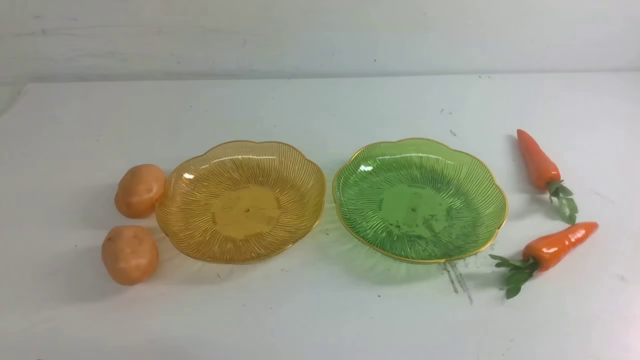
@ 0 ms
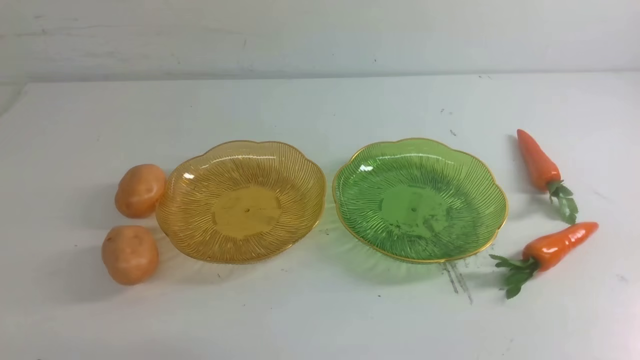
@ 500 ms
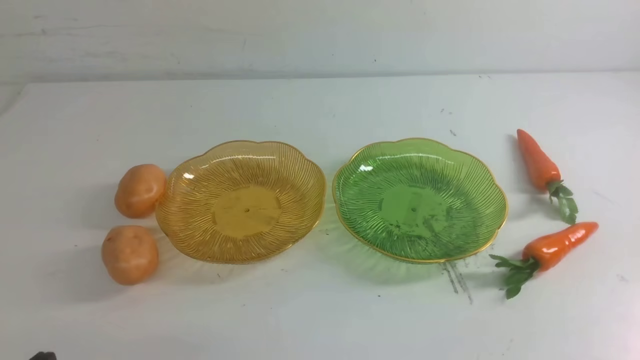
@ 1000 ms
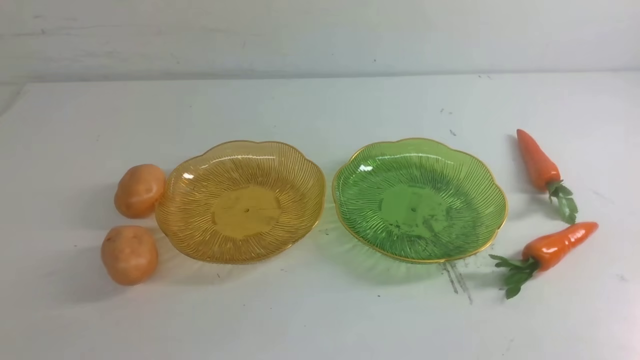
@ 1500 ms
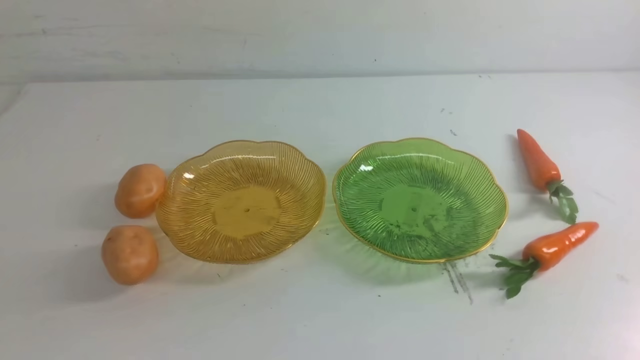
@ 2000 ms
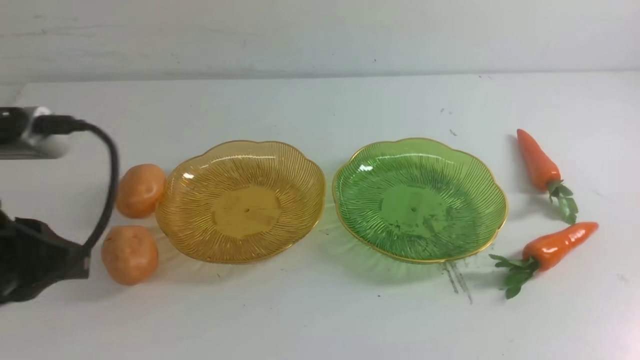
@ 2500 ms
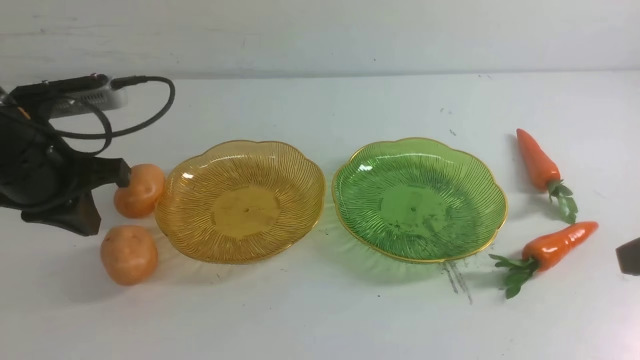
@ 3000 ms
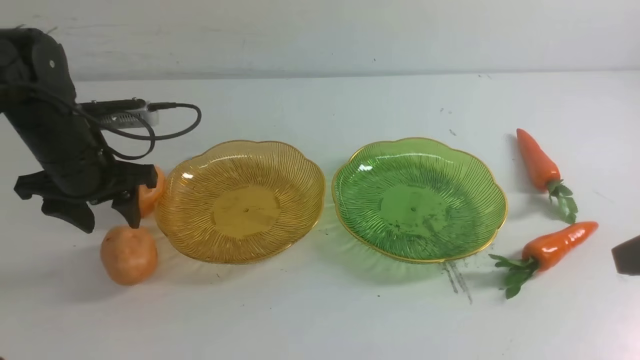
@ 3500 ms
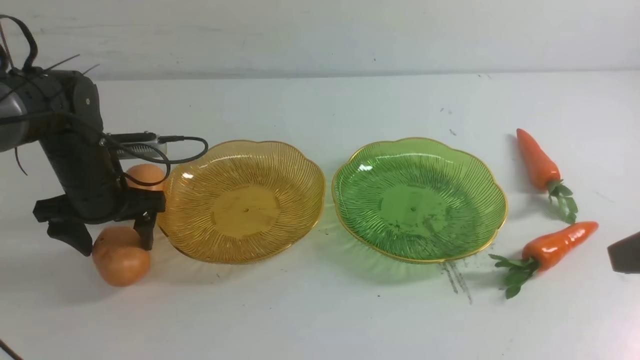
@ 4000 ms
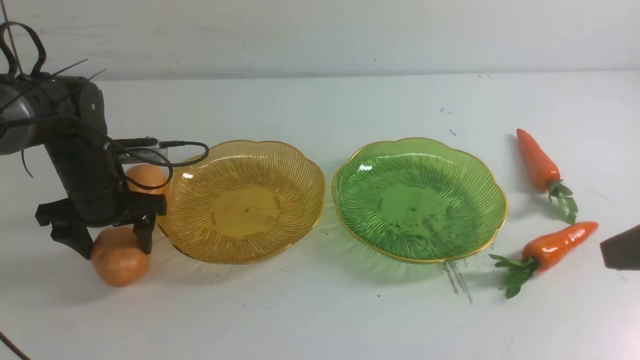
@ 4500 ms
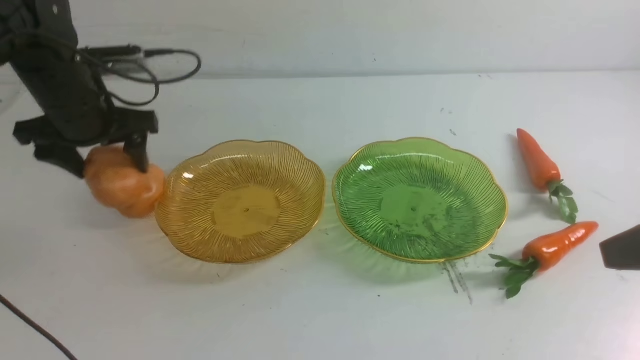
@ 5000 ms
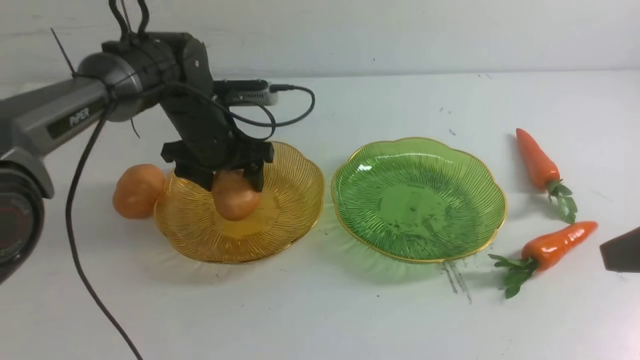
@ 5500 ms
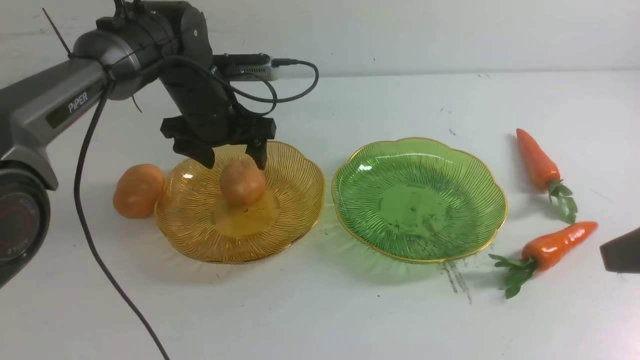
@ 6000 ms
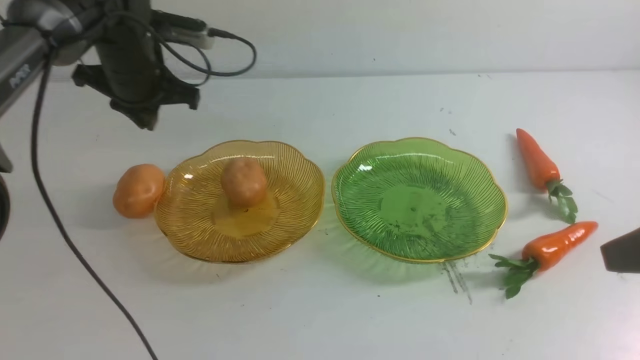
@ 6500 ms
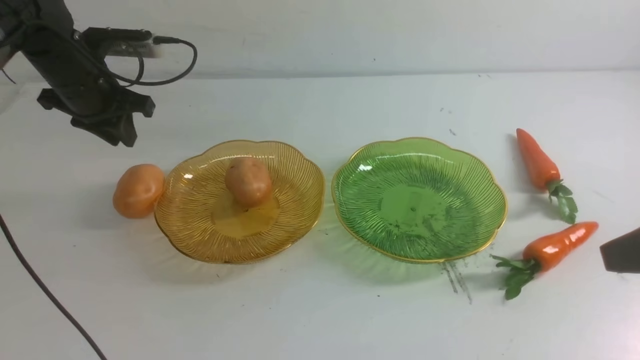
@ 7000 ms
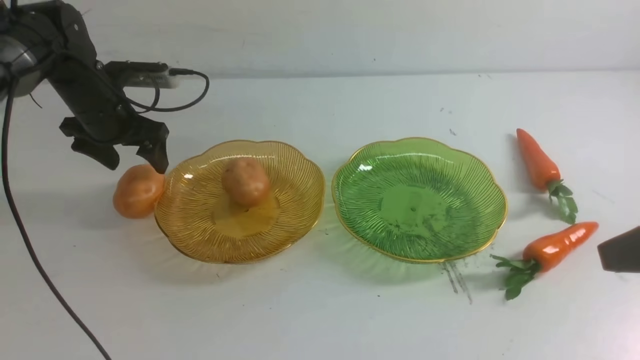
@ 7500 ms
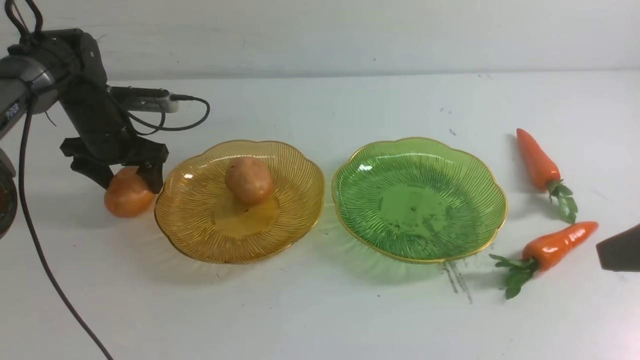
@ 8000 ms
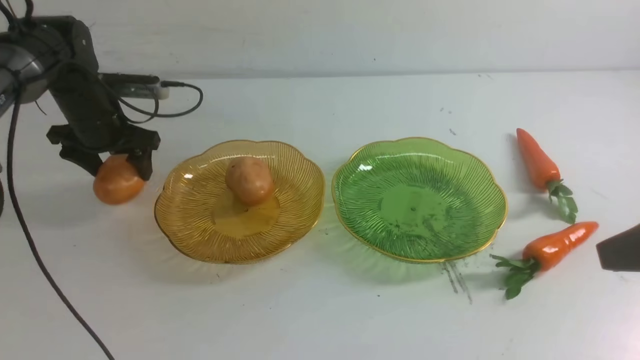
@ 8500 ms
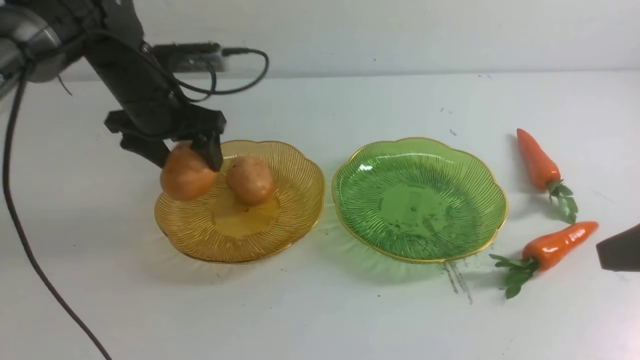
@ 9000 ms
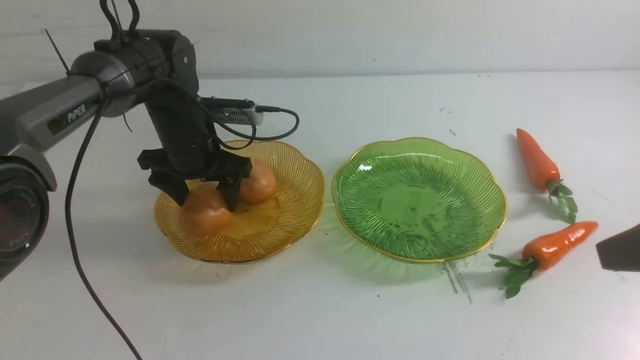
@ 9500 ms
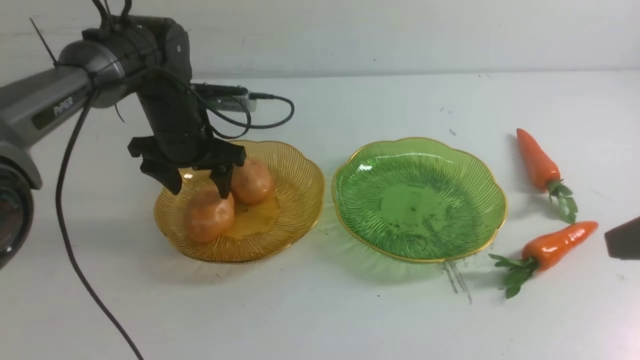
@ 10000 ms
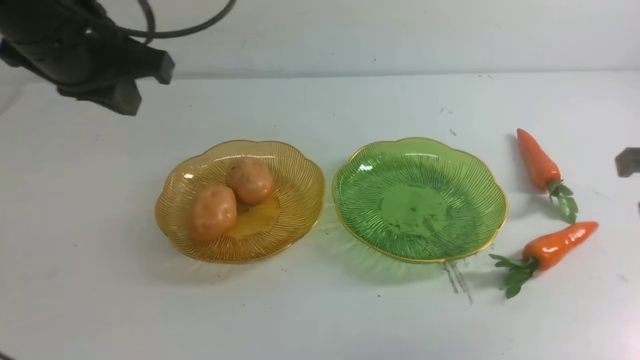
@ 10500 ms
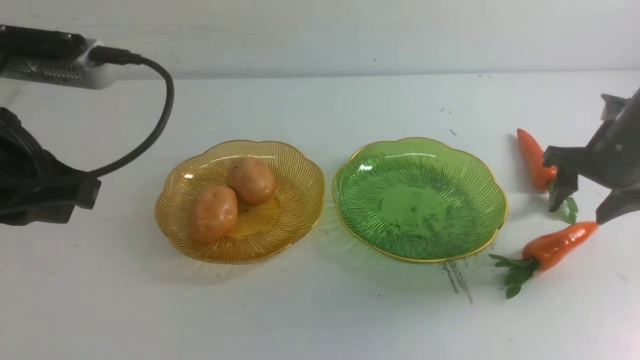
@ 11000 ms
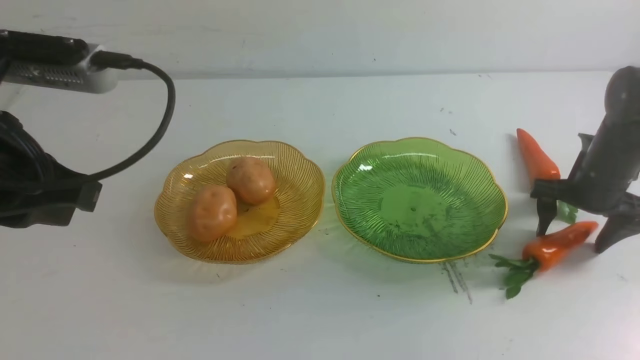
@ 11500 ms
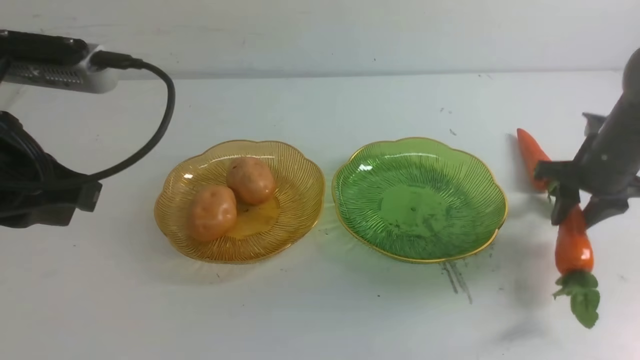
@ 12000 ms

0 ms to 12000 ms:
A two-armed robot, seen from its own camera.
Step, 0 ms to 10000 ms: Grab a potato with your left arm and put it on the left plate.
2000 ms to 4000 ms: The left gripper goes some 35 cm forward and downward, and opens its fingers.
4000 ms to 6000 ms: The left gripper goes about 15 cm to the right, forward and upward.
6000 ms to 8000 ms: The left gripper goes about 15 cm to the left, and closes and opens again.
8000 ms to 10000 ms: The left gripper travels to the right, upward and backward by roughly 15 cm.
10000 ms to 12000 ms: The right gripper travels forward and downward by about 25 cm, and opens up, while the left gripper moves backward and upward, roughly 25 cm, and closes up.

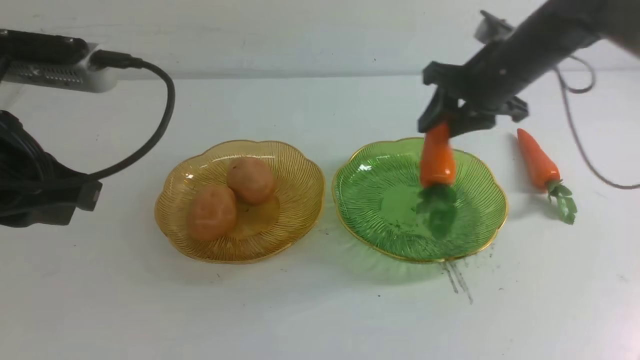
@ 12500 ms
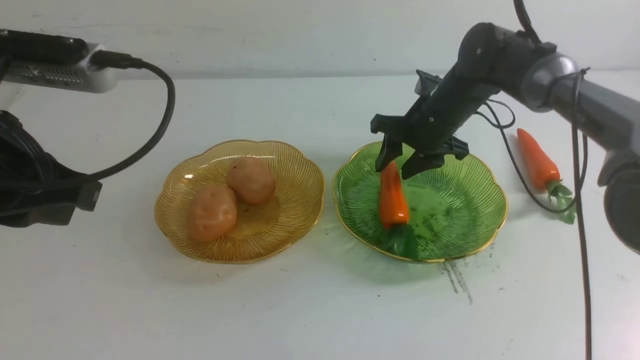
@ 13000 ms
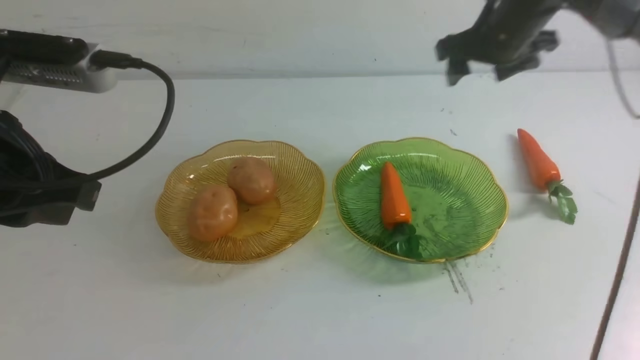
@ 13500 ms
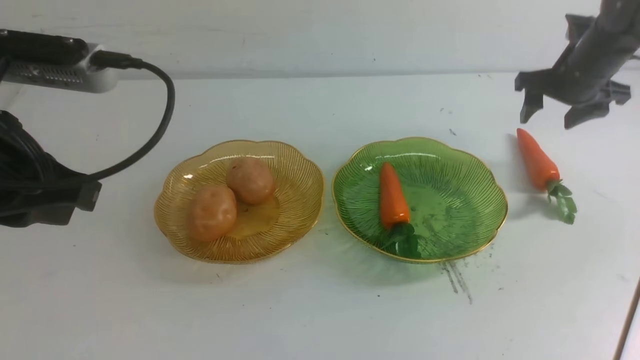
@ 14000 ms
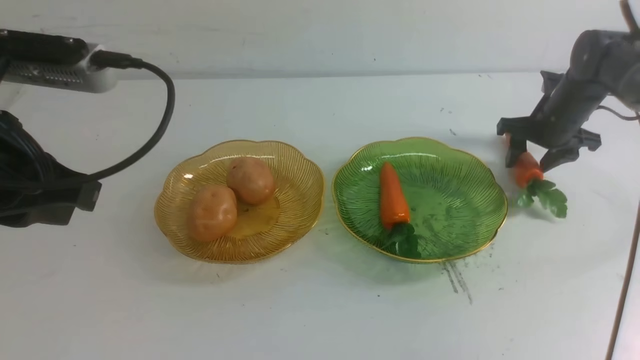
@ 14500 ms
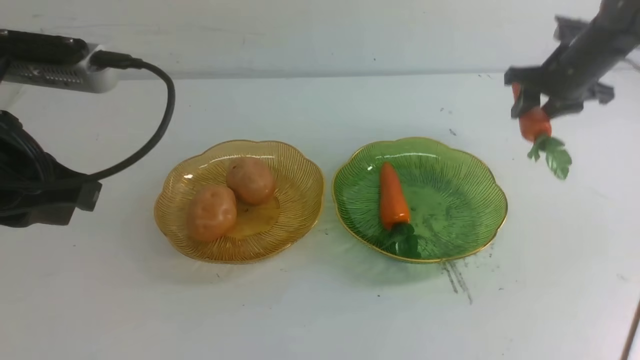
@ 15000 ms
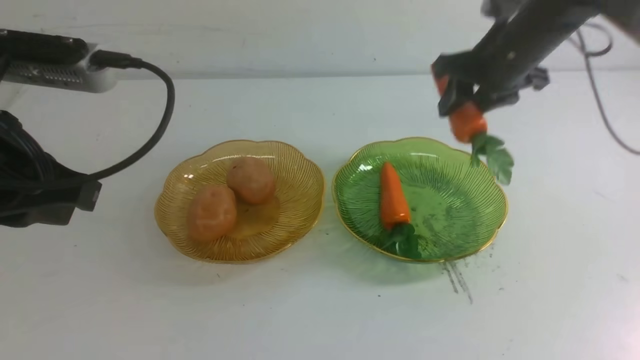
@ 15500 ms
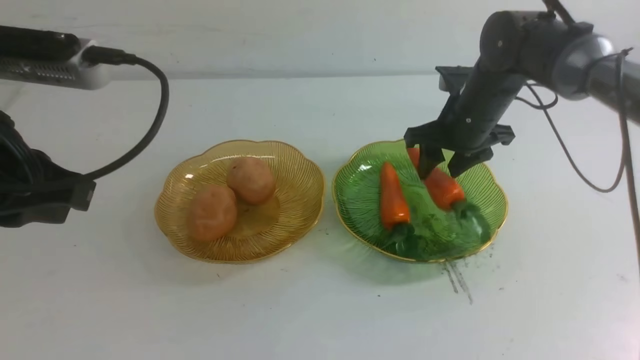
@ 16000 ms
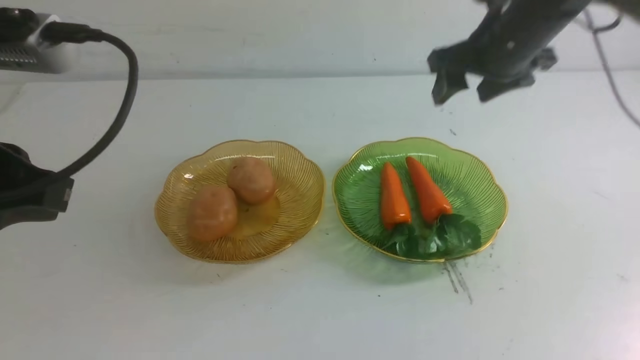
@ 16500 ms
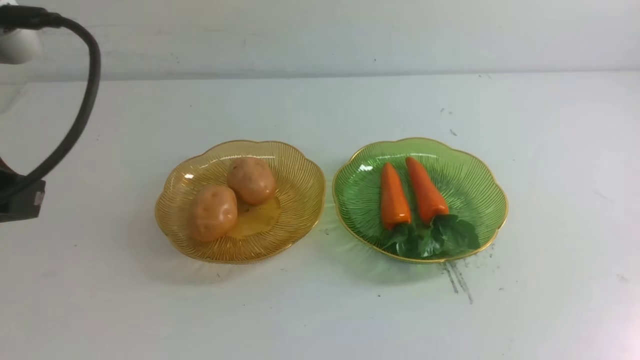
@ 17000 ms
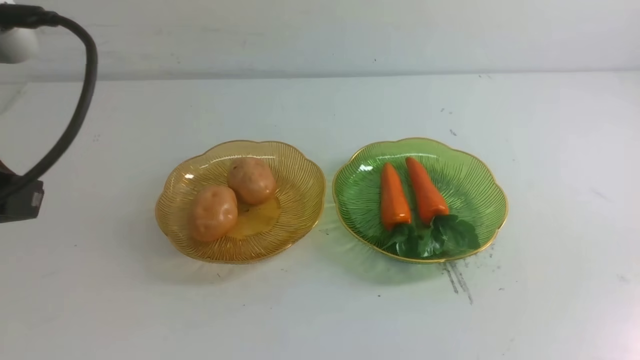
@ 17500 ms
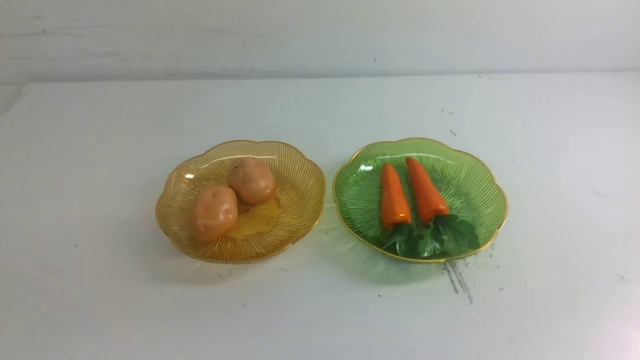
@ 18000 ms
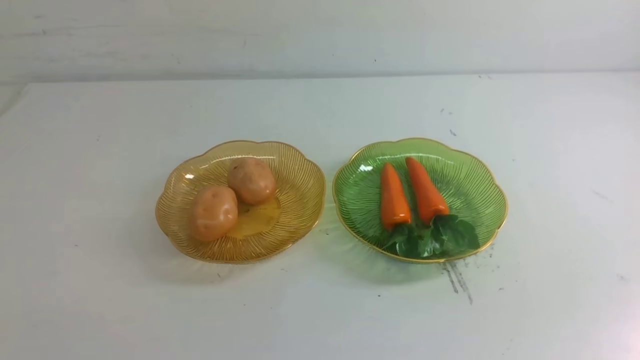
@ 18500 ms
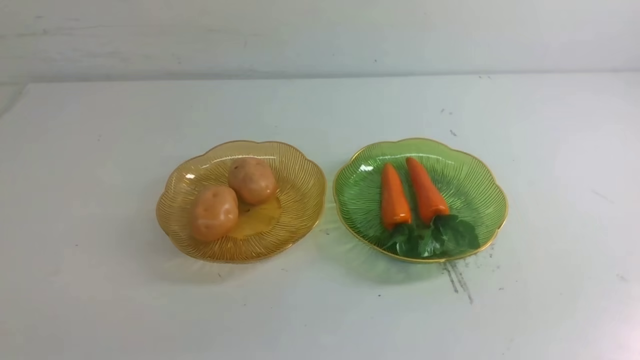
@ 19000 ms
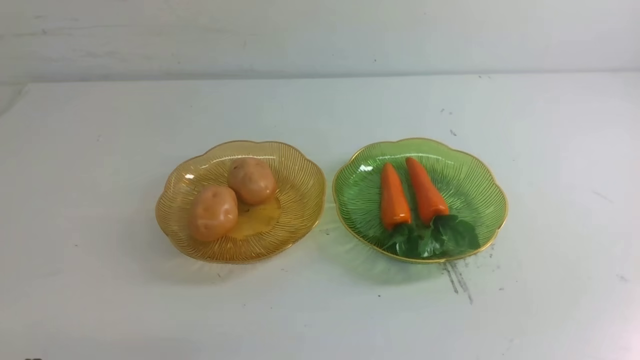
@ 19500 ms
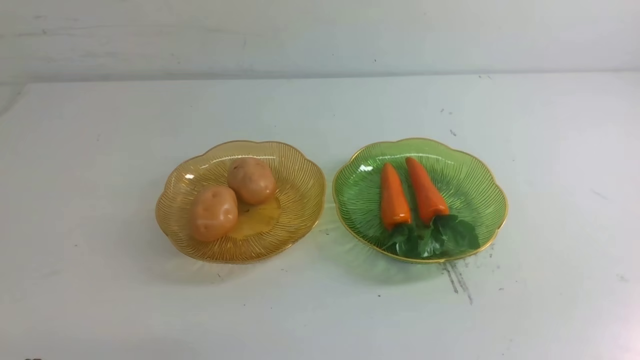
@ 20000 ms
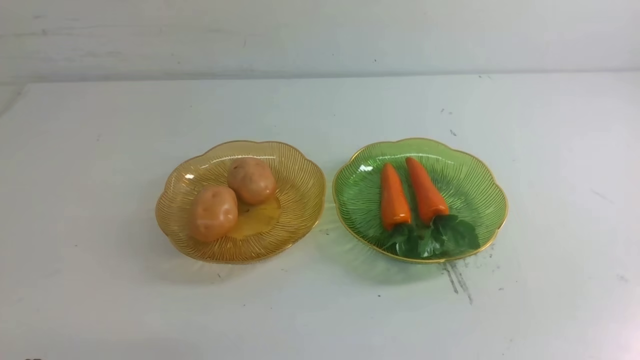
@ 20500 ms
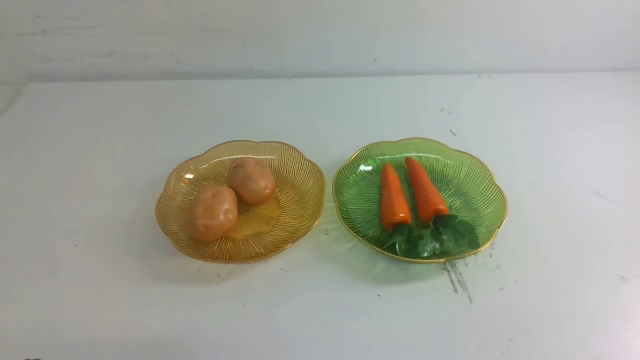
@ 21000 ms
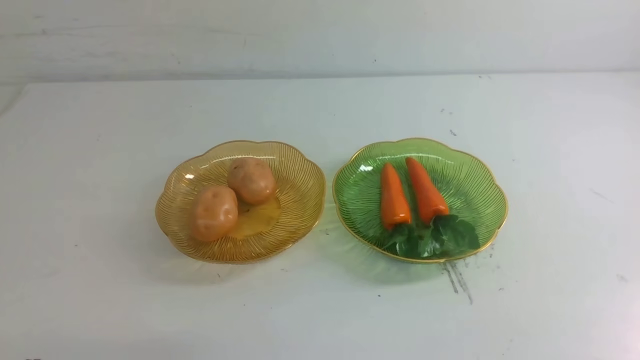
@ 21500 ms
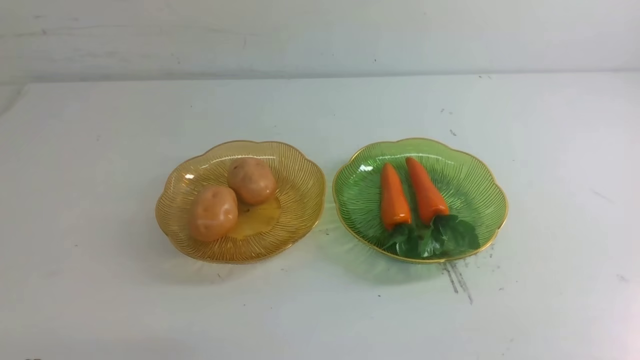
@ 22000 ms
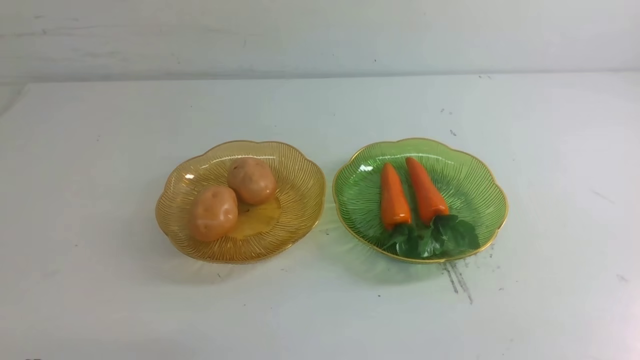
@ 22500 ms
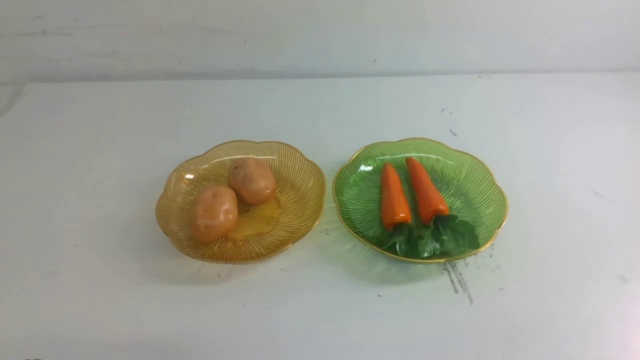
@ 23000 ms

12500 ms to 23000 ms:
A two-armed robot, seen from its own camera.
Step, 12500 ms to 16000 ms: use the right arm to grab a carrot and put it into the right plate.
12500 ms to 14500 ms: The right gripper is displaced to the right, downward and forward by some 15 cm.
14500 ms to 16500 ms: The right gripper moves up and down over roughly 20 cm, changing direction 2 times.
16500 ms to 19000 ms: The left gripper shifts some 20 cm downward and backward. Meanwhile the right gripper is displaced backward by roughly 40 cm, and closes.
